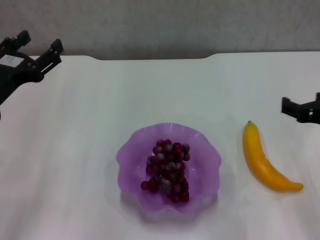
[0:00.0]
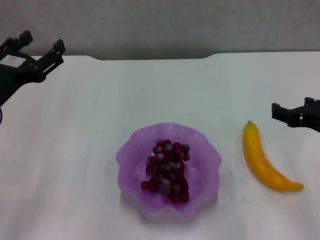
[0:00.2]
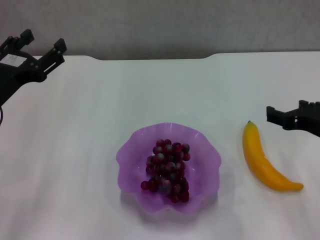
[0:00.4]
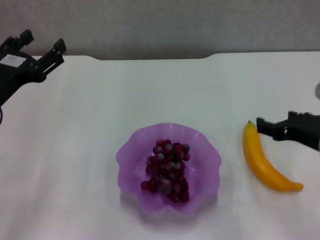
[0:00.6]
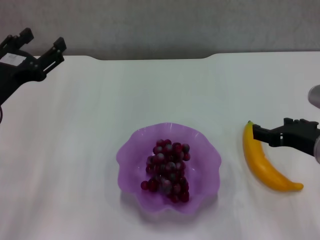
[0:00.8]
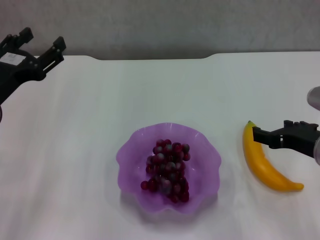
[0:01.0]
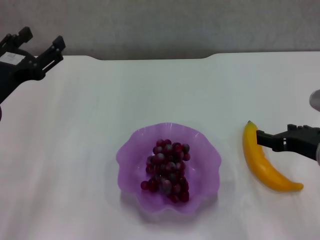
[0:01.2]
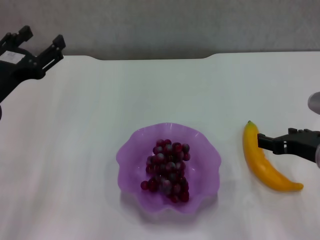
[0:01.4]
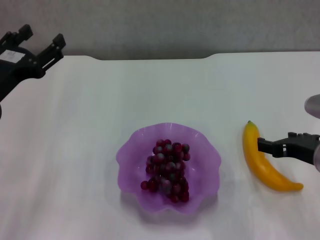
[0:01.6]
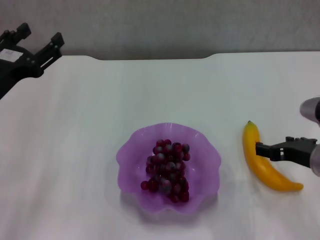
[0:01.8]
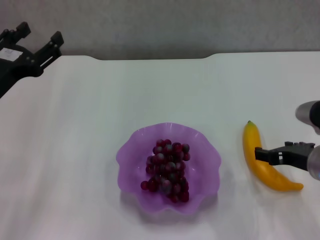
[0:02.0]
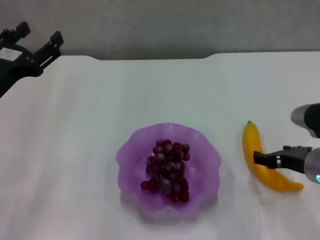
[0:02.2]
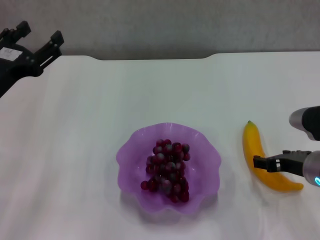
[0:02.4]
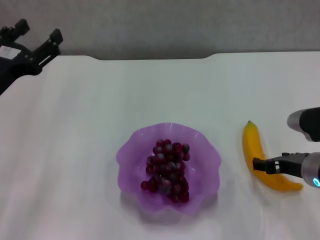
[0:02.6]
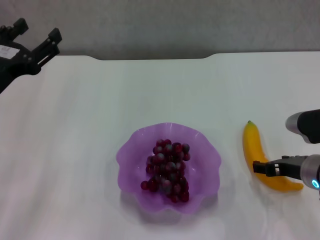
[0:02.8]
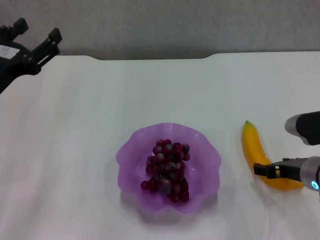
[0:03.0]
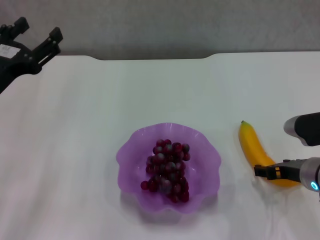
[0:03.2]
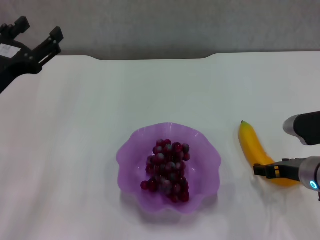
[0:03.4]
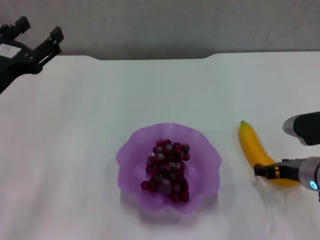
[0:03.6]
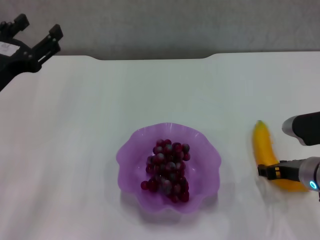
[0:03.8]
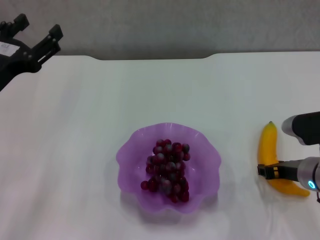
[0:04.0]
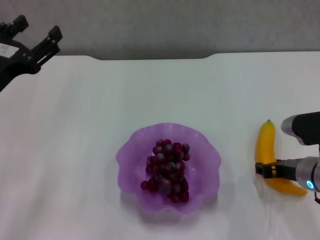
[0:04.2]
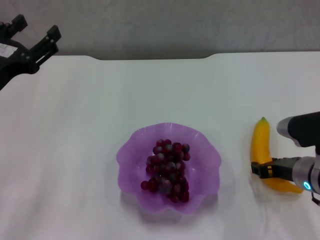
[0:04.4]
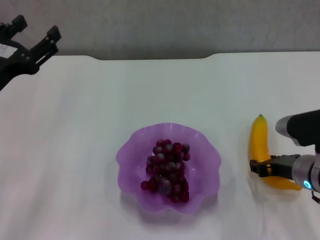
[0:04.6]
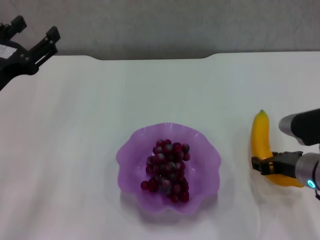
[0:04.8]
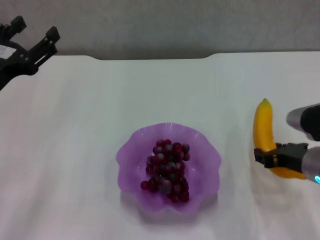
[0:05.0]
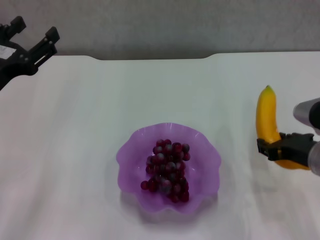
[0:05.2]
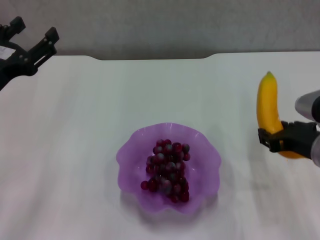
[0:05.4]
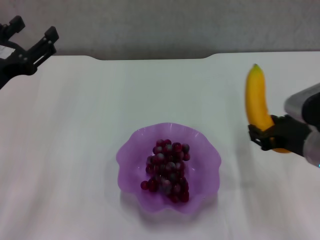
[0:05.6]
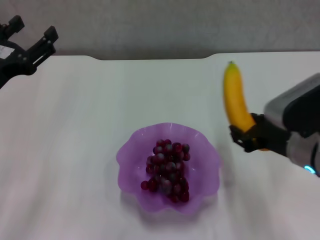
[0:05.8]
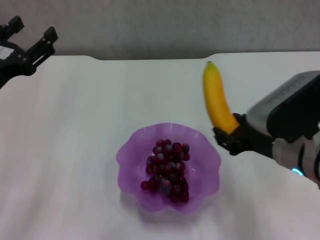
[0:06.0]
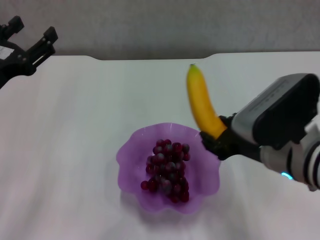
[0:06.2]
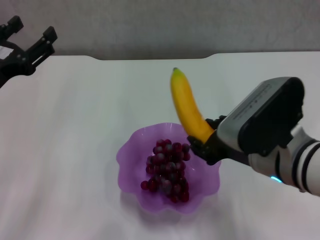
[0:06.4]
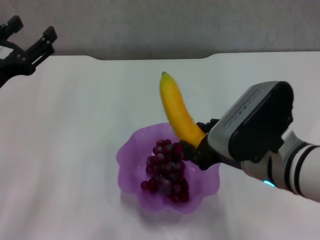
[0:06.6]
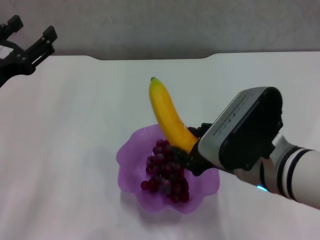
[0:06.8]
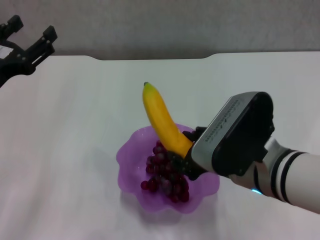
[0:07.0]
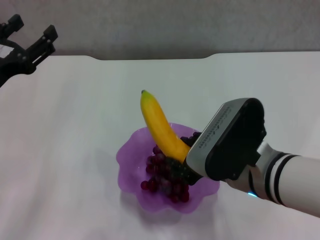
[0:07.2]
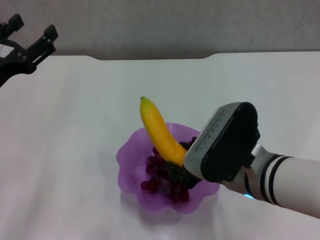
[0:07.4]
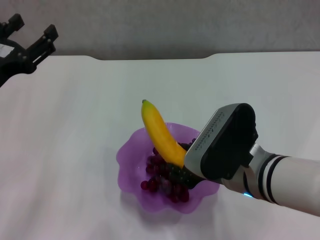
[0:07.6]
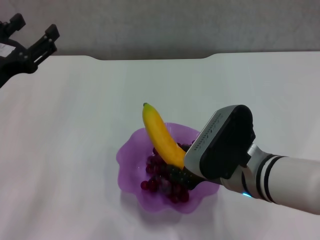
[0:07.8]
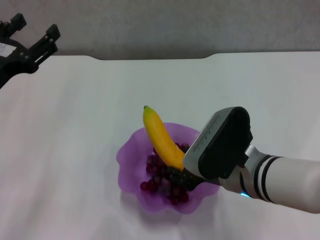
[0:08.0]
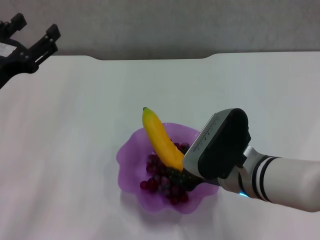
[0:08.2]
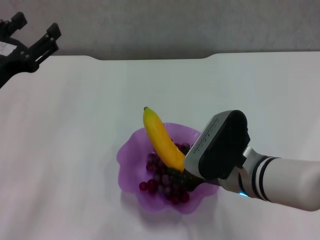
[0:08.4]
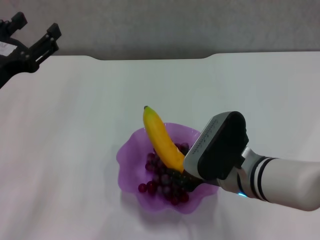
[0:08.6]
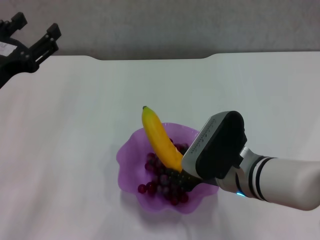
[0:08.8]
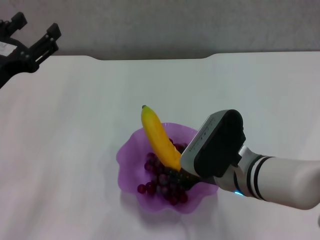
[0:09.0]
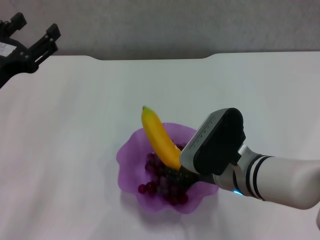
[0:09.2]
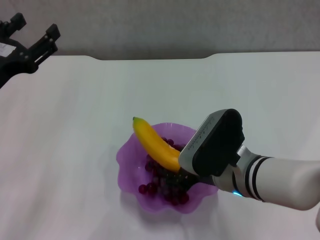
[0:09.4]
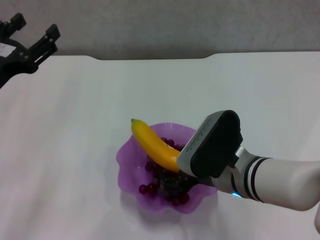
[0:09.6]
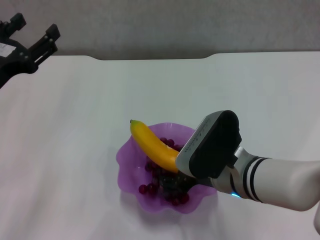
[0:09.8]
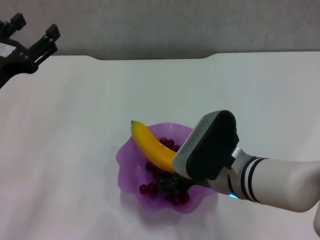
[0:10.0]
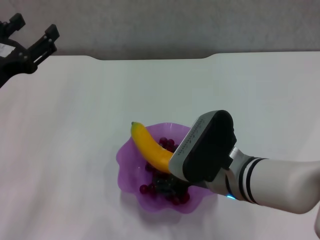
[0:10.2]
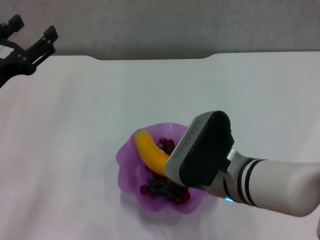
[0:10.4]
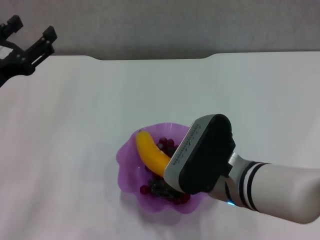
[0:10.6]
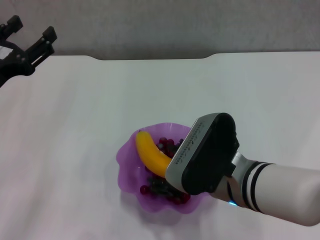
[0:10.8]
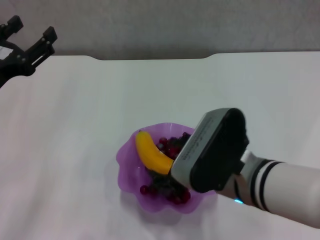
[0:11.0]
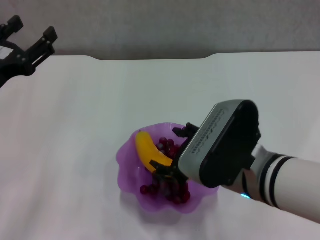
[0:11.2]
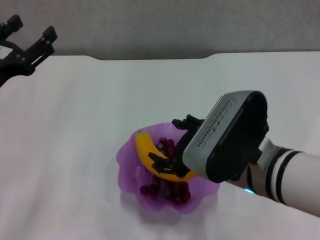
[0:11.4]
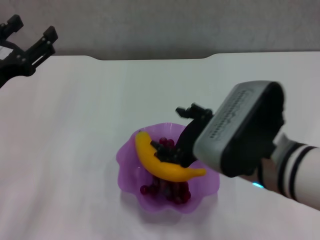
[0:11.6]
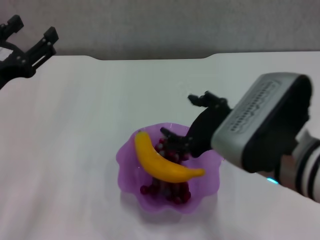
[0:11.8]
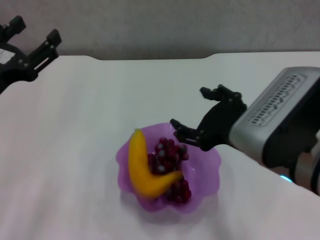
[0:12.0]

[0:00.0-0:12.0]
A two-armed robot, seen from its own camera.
Step, 0:00.0 to 0:04.4: Grasp the banana with right gripper.
0:00.0 to 0:01.6: The right gripper moves about 5 cm.
0:01.6 to 0:03.0: The right gripper goes roughly 5 cm downward.
0:03.0 to 0:04.4: The right gripper closes up.
0:04.4 to 0:06.0: The right gripper shifts roughly 10 cm upward and to the left.
0:06.0 to 0:07.6: The right gripper moves to the left, approximately 5 cm.
0:07.6 to 0:09.0: The grippers stay close to where they were, moving slightly.
0:09.0 to 0:10.4: The right gripper opens up.
0:10.4 to 0:12.0: The right gripper heads upward, covering about 10 cm.

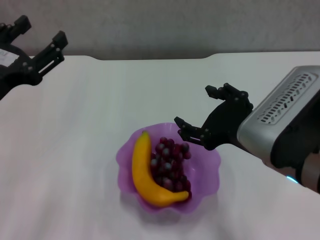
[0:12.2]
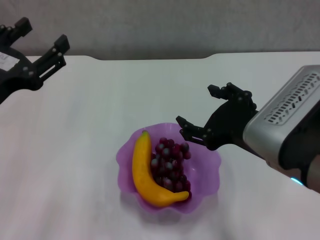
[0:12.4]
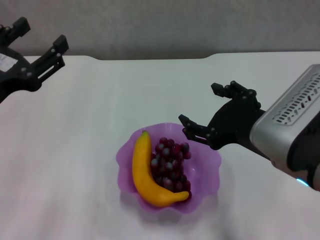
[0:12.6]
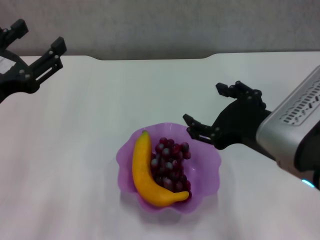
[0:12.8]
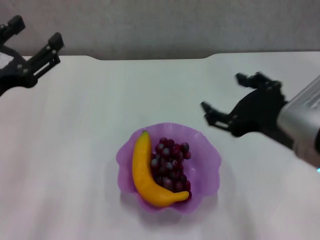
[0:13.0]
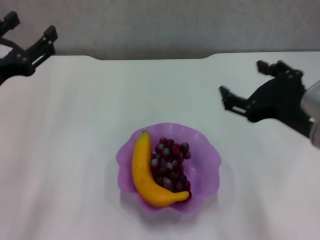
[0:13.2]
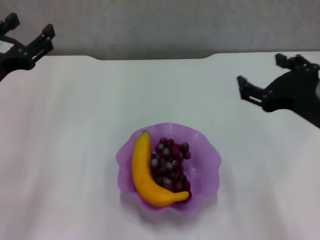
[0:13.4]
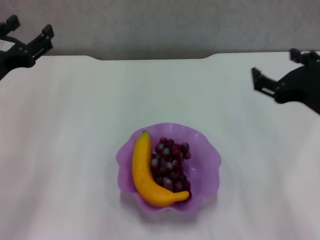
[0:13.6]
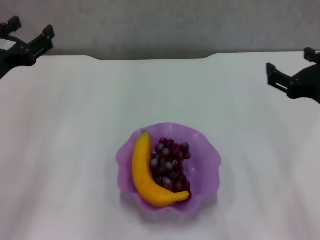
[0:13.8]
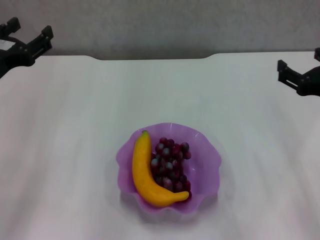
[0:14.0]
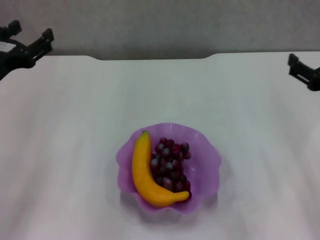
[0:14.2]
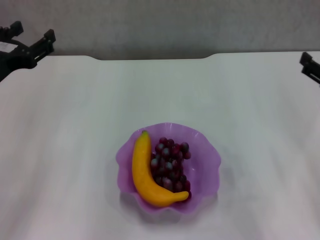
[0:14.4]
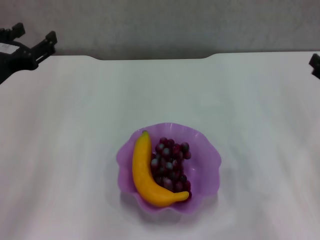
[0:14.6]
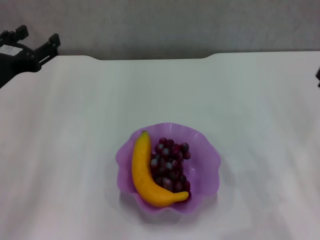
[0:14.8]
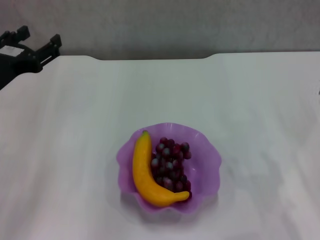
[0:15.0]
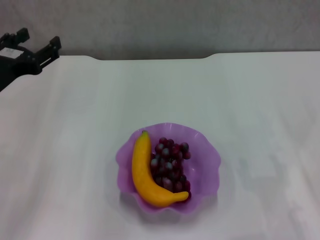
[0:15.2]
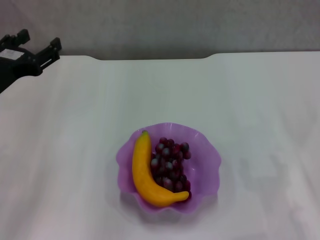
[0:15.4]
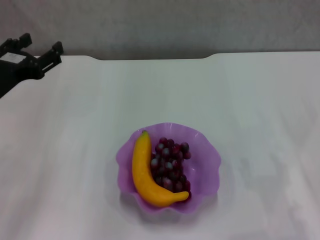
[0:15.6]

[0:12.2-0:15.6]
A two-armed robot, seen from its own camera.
0:12.2 to 0:13.8: The right gripper moves to the right, approximately 10 cm, while the left gripper travels forward by some 5 cm.
0:13.8 to 0:15.6: The right gripper heads to the right and downward, covering roughly 15 cm.
